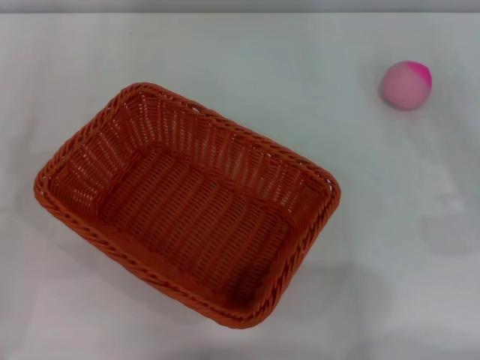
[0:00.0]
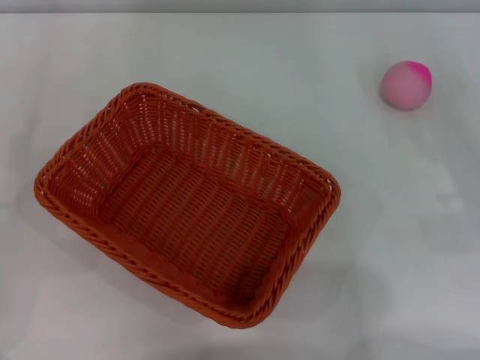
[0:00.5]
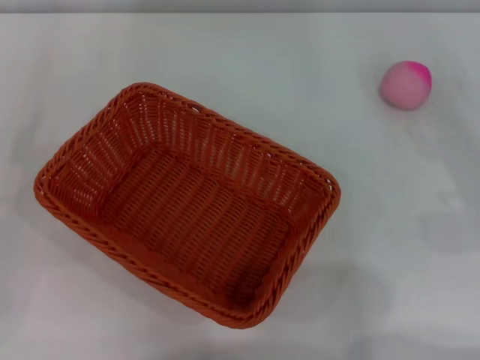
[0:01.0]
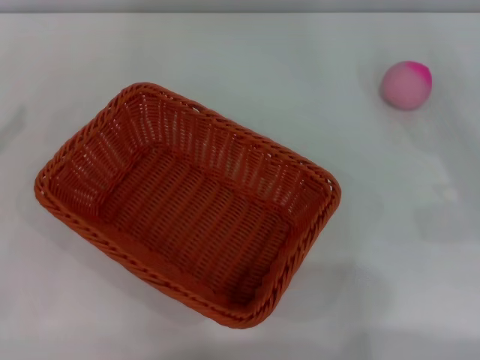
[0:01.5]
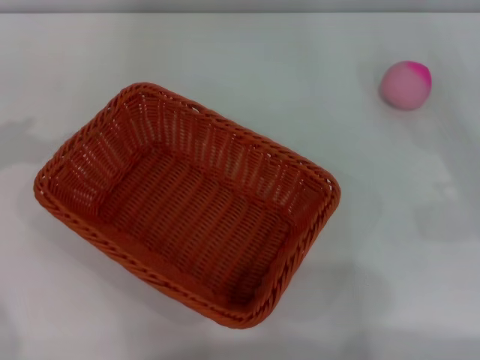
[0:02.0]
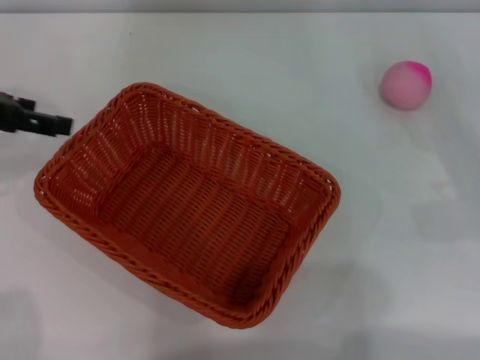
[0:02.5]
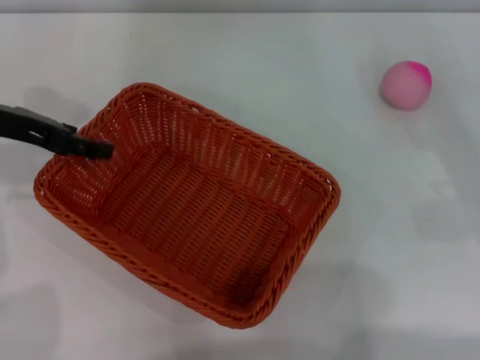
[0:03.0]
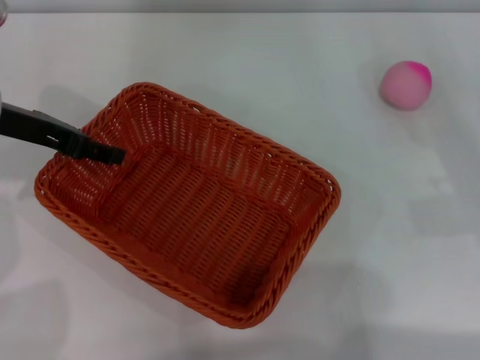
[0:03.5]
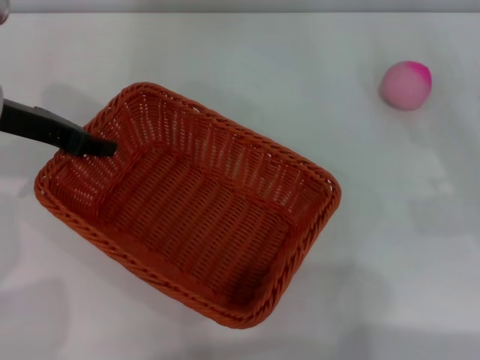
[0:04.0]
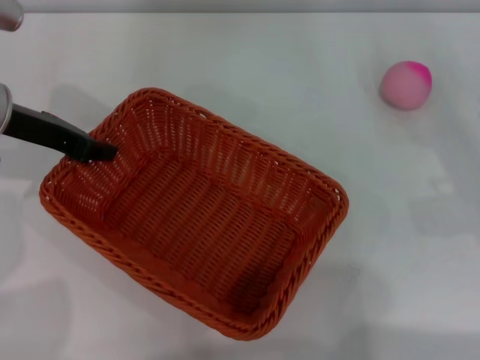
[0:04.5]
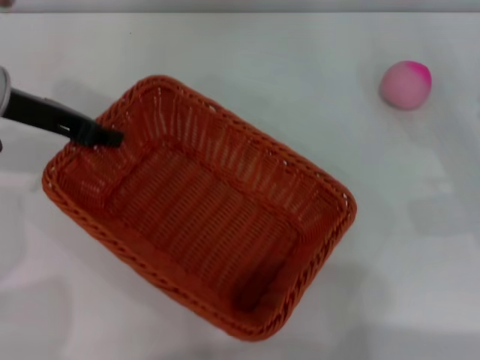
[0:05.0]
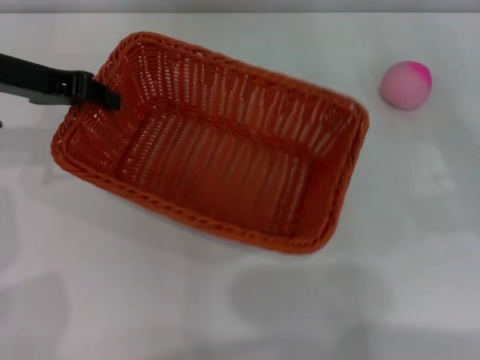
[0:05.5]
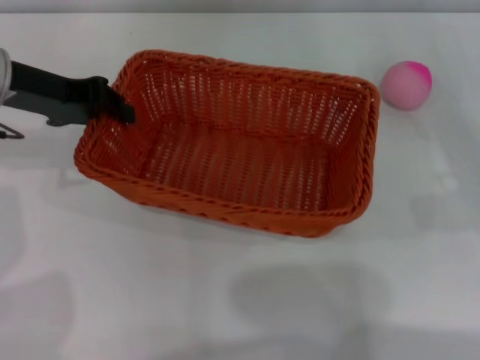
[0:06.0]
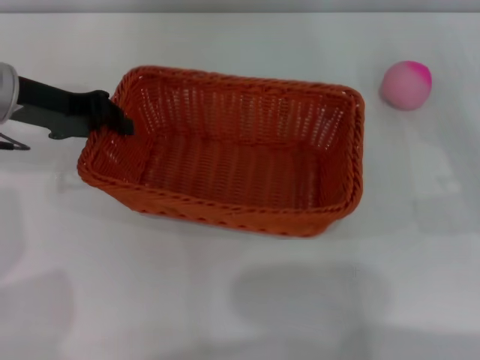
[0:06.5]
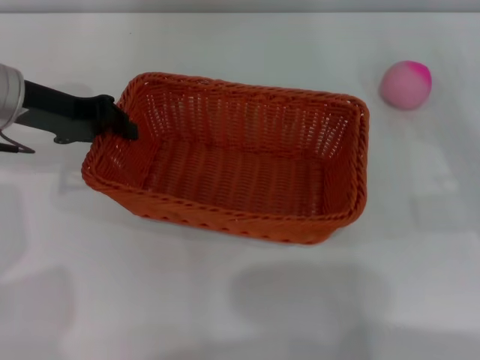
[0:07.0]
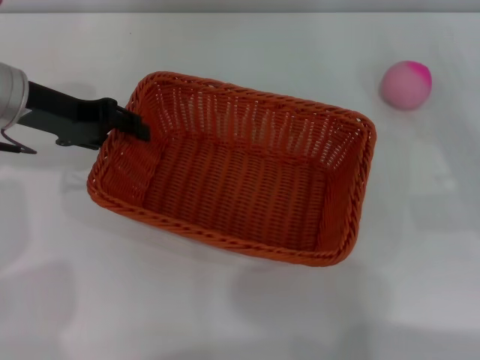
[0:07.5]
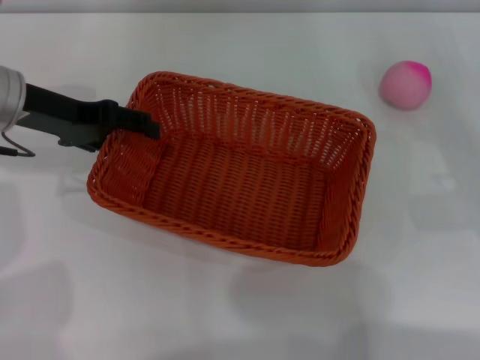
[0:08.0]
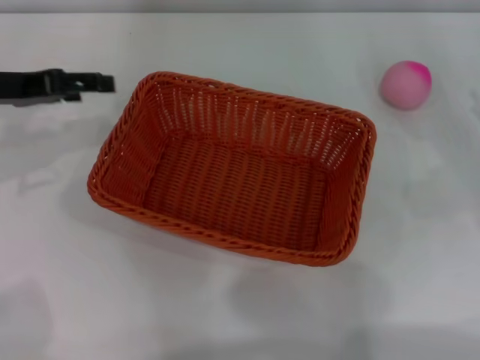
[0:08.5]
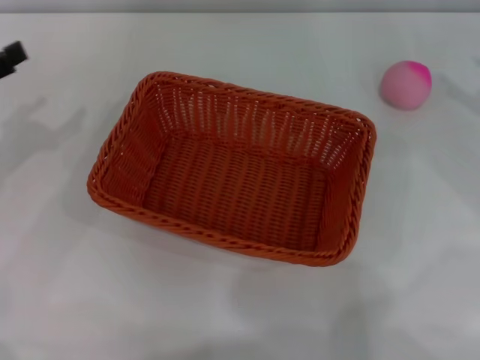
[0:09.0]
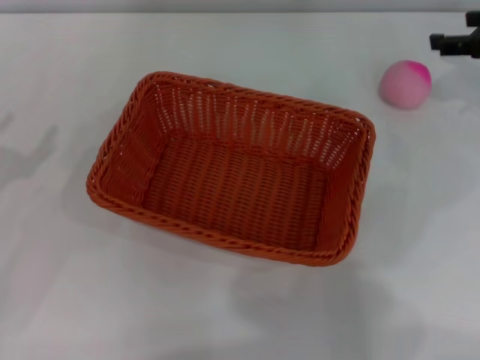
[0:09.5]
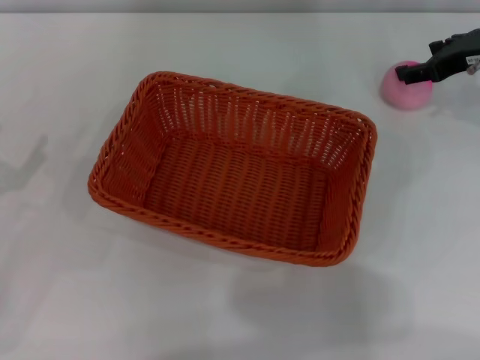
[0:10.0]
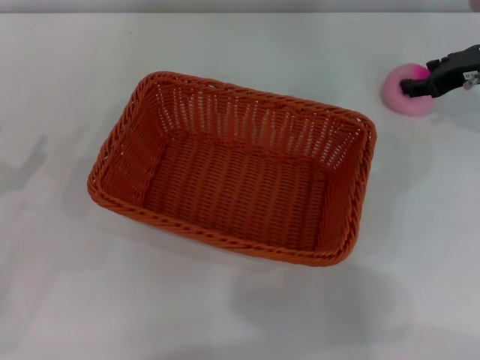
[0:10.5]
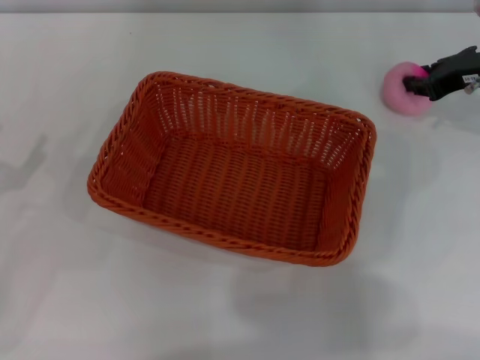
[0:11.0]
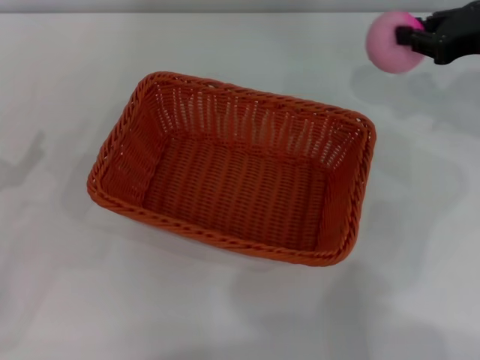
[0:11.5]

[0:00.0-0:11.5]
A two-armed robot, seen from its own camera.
Step, 0:00.0 to 0:05.0: Pick up the light basket with the left gripper.
Step, 0:05.5 to 0:08.0: Place the light basket in the center of view with the right gripper.
Step, 0:08.5 to 0:11.0: Pick up the peach with the left gripper.
0:02.0 to 0:04.0: The left gripper moves to the right and downward, roughly 15 cm, and closes.
0:04.0 to 0:06.0: The left gripper closes.
0:06.0 to 0:07.5: The grippers stay close to where they were, moving slightly.
0:07.5 to 0:09.5: The left gripper is displaced backward, to the left and downward by about 20 cm, and opens its fingers; the right gripper shifts approximately 15 cm forward and upward.
0:09.5 to 0:11.5: The right gripper changes place by roughly 5 cm, and closes up.

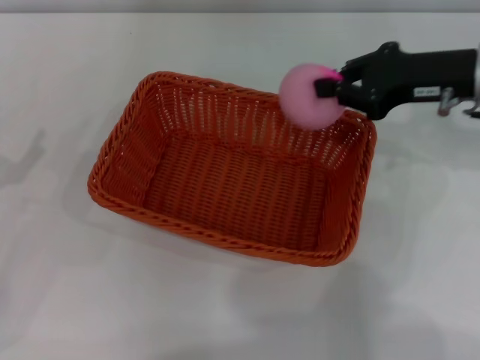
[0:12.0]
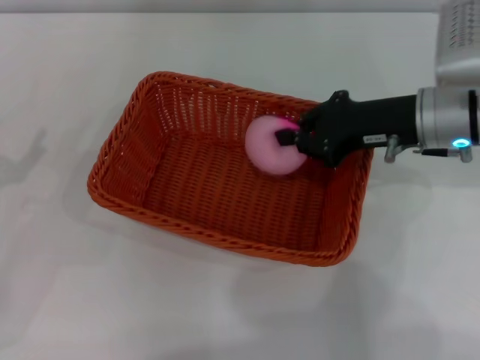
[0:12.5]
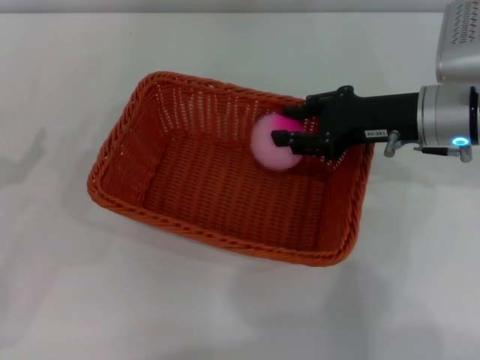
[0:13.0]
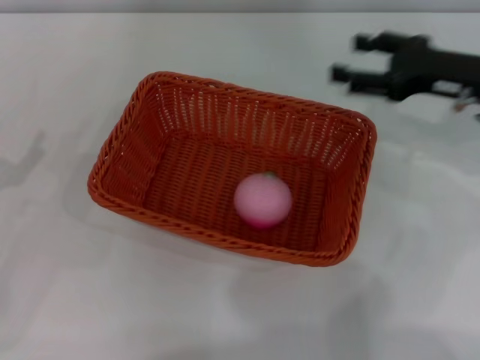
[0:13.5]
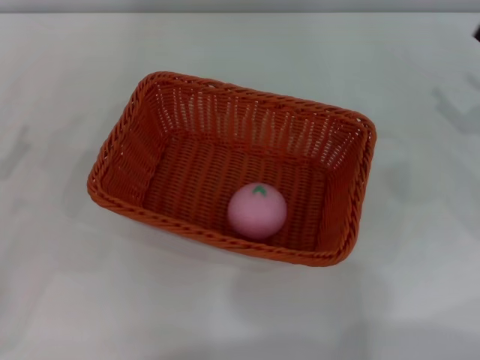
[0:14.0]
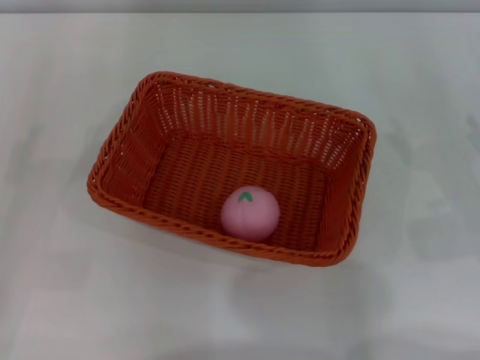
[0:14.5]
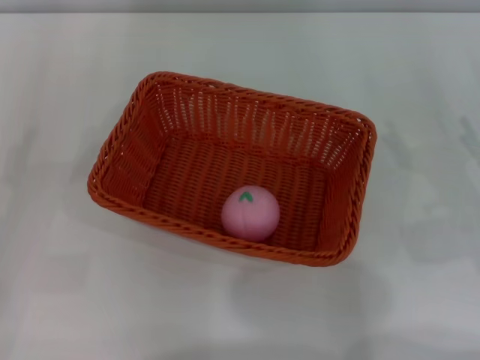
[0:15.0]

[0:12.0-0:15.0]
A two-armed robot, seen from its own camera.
0:12.0 to 0:13.5: The right gripper opens its fingers.
0:13.5 to 0:15.0: The right gripper travels backward, downward and to the right by about 15 cm.
